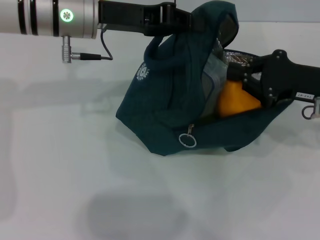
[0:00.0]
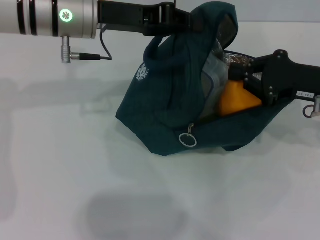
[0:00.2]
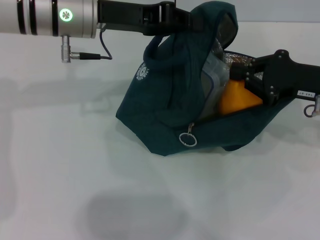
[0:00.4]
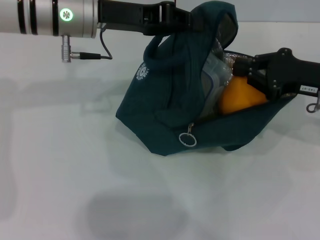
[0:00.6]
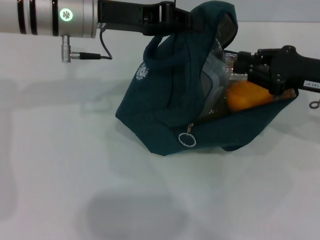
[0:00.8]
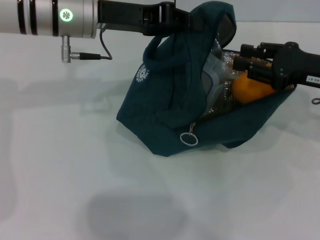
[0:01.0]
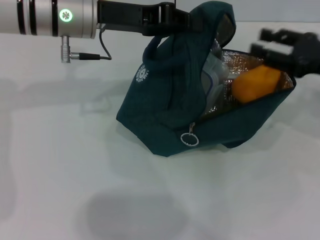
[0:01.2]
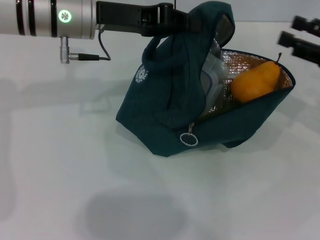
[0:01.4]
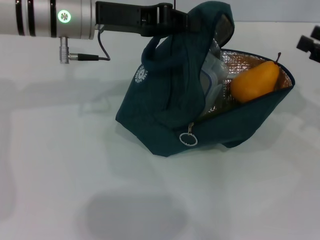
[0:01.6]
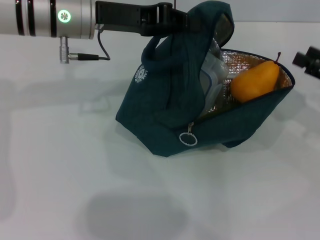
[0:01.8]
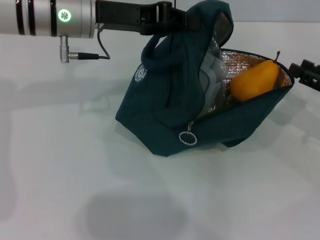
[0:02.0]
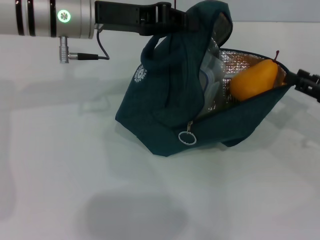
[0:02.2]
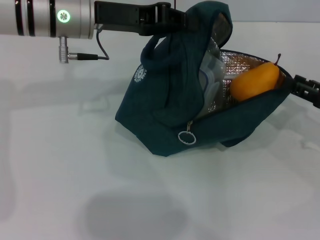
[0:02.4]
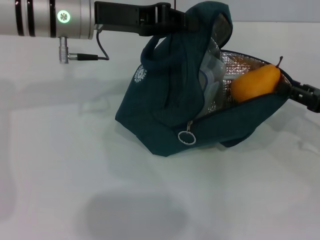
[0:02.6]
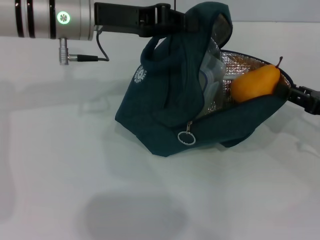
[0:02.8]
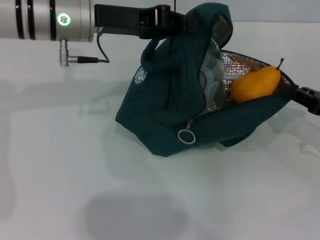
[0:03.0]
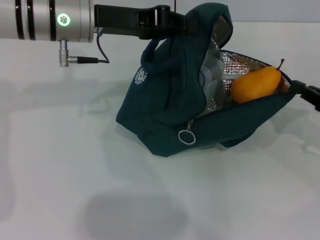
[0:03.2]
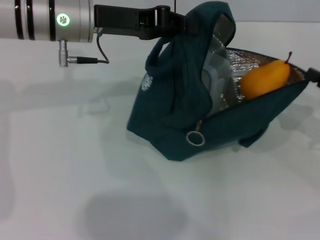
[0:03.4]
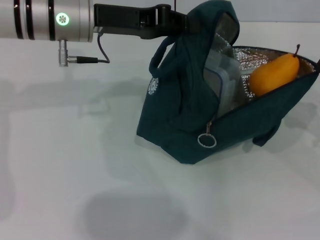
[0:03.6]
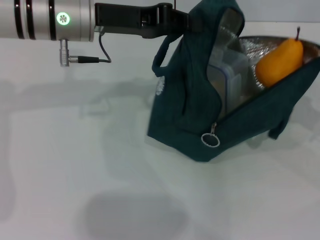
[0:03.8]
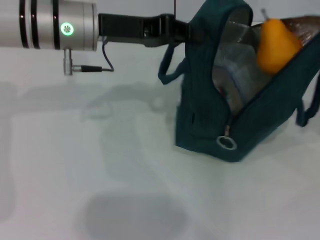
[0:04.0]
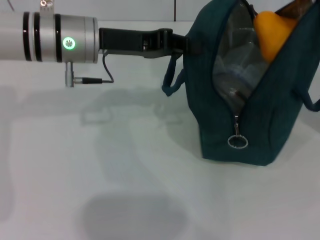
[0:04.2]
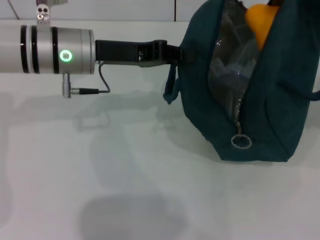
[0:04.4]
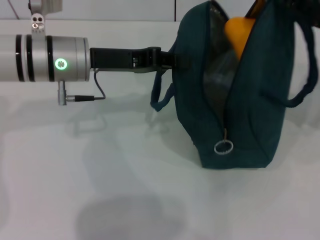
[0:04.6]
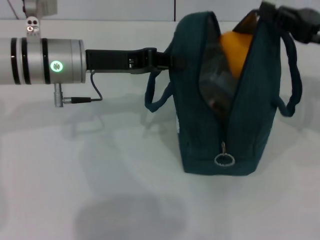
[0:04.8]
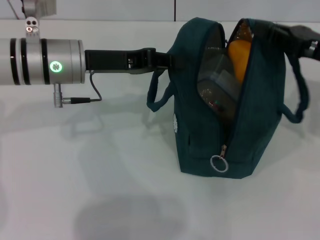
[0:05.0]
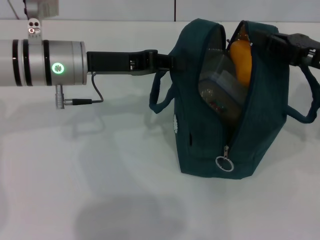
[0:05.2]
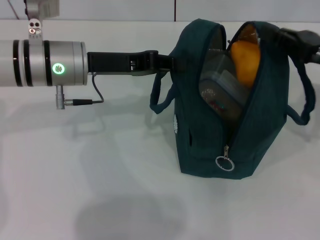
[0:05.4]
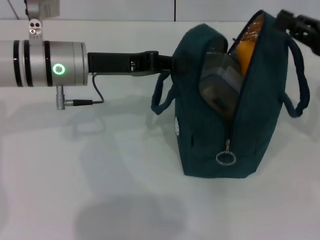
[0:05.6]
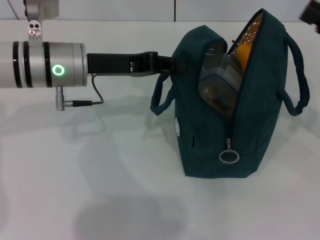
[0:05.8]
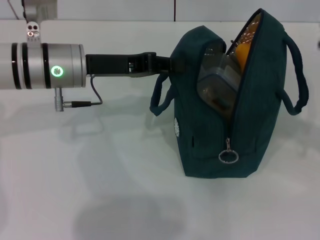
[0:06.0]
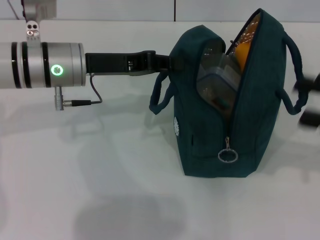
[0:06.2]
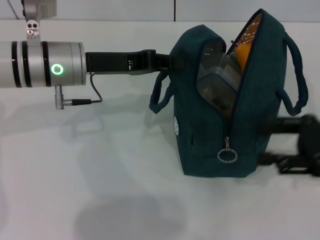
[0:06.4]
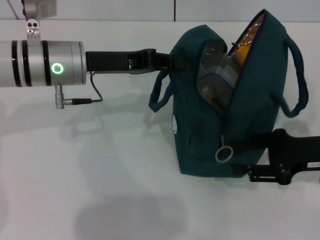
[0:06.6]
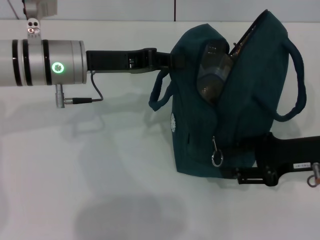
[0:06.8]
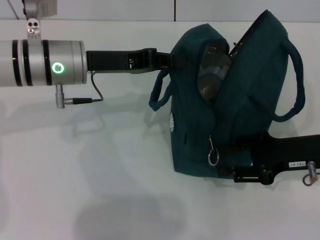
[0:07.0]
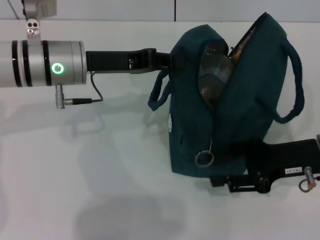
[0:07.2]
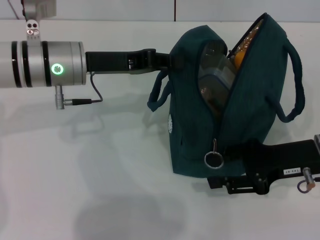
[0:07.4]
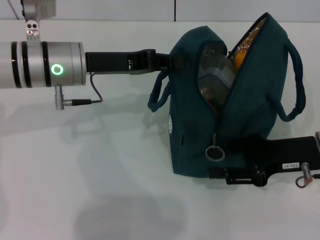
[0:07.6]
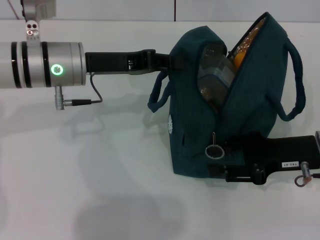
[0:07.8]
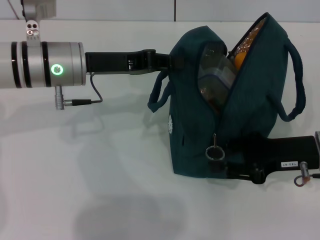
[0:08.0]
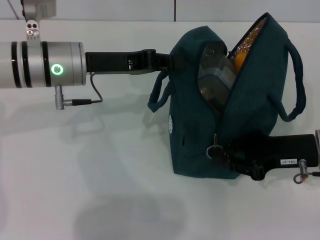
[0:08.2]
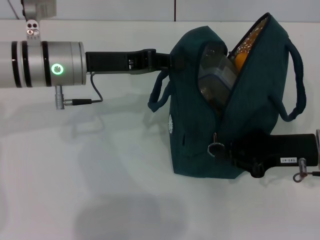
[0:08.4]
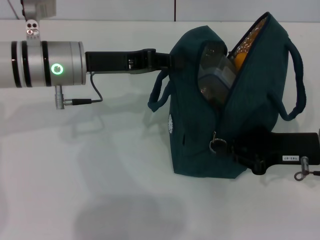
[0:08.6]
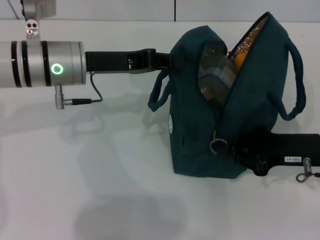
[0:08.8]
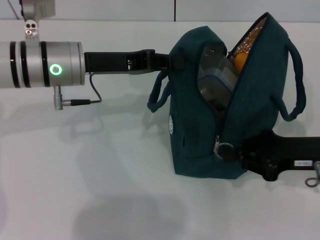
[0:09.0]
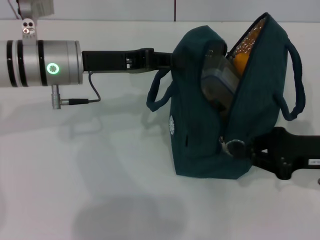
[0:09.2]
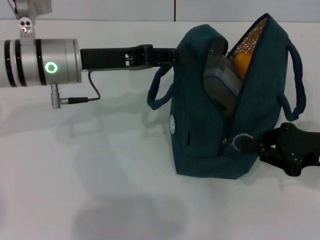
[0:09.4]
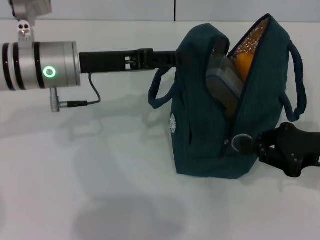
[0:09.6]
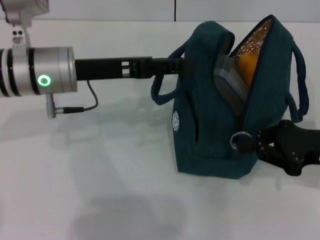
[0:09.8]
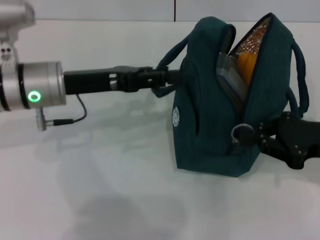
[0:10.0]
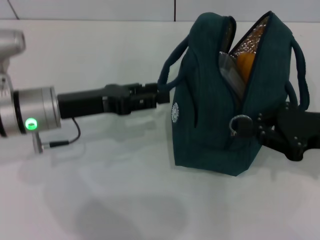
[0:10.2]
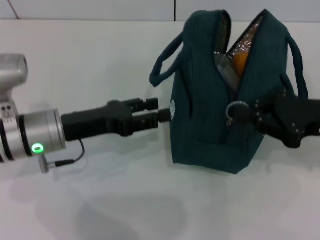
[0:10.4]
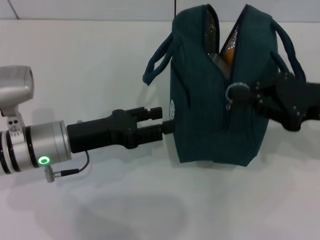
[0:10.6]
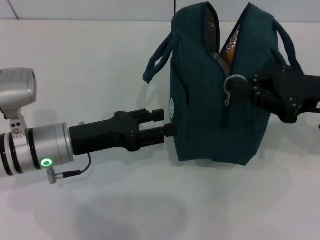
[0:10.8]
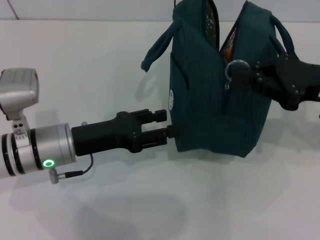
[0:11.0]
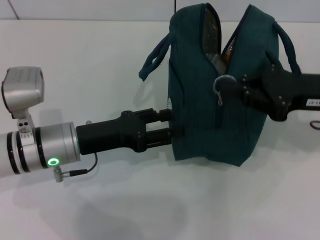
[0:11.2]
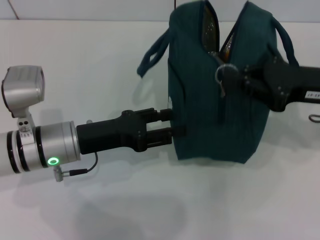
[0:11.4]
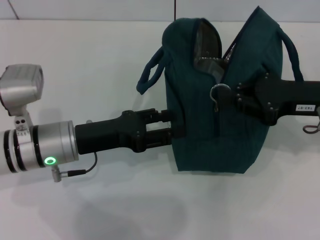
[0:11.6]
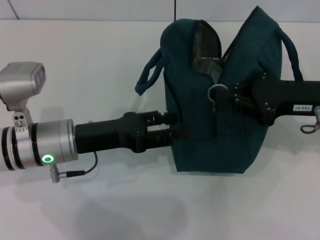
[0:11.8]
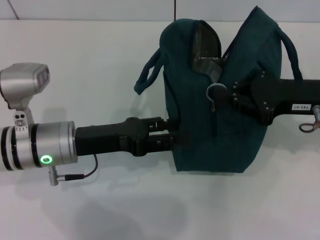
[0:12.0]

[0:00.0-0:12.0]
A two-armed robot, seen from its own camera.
Step, 0:01.2 to 0:05.6: Hold the lunch bag with your right hand.
0:00.0 to 0:01.6: The right gripper shifts about 10 cm to the right, and opens.
0:01.6 to 0:03.0: The right gripper is displaced downward by approximately 5 cm, and closes up.
0:03.0 to 0:04.4: The right gripper is displaced upward by roughly 10 cm, and closes.
0:04.4 to 0:06.0: The right gripper travels backward by some 5 cm.
0:06.0 to 0:07.6: The right gripper moves to the left and downward, about 10 cm.
0:07.6 to 0:09.0: The right gripper closes up.
0:09.0 to 0:10.4: The left gripper heads backward and downward, covering some 10 cm, and opens its fingers; the right gripper shifts by roughly 5 cm.

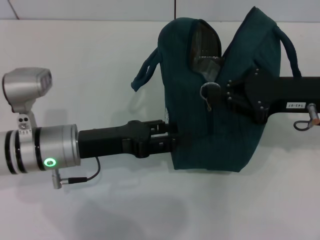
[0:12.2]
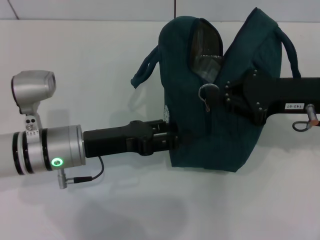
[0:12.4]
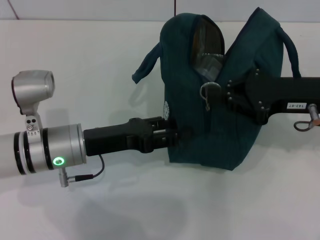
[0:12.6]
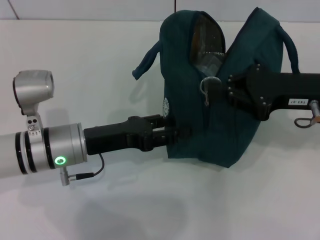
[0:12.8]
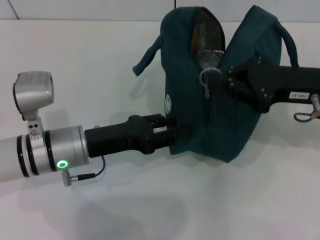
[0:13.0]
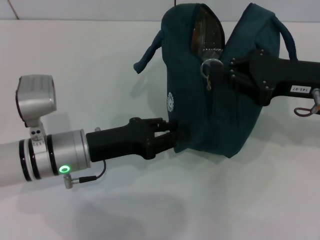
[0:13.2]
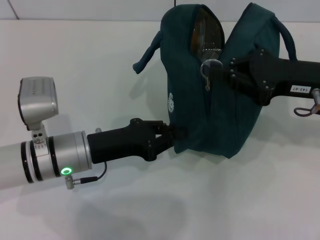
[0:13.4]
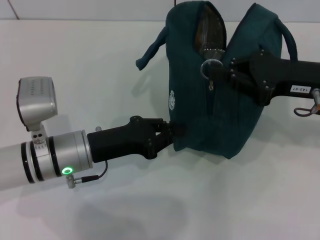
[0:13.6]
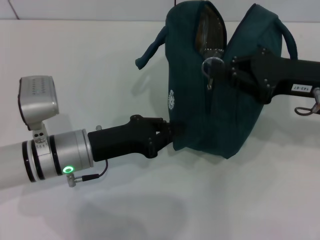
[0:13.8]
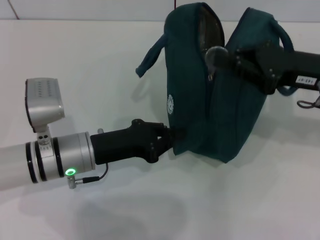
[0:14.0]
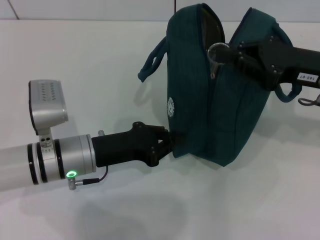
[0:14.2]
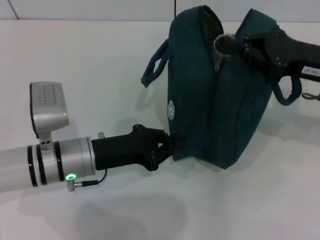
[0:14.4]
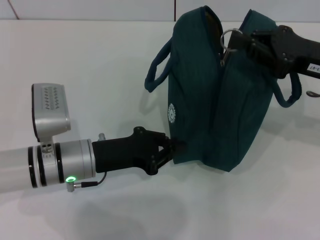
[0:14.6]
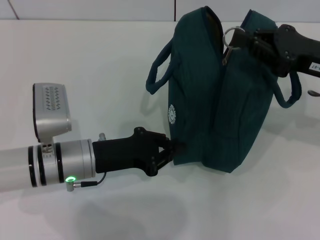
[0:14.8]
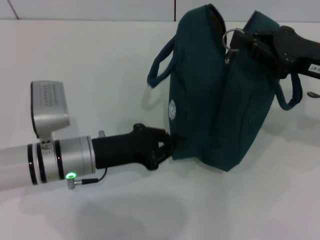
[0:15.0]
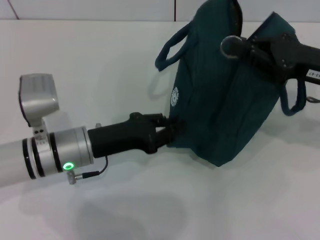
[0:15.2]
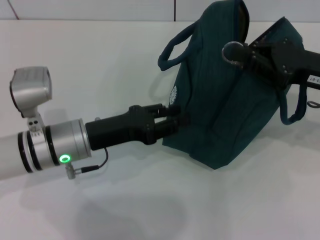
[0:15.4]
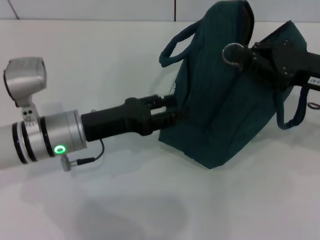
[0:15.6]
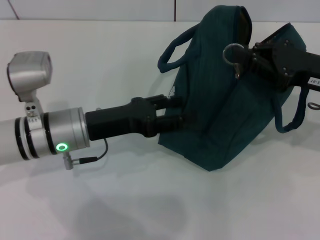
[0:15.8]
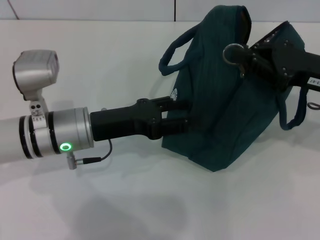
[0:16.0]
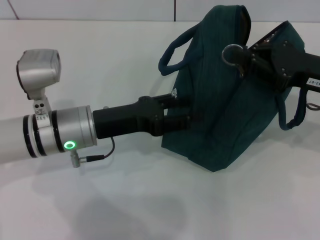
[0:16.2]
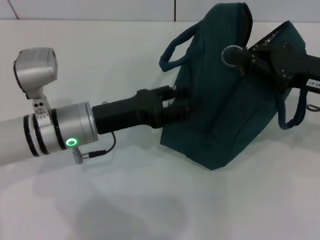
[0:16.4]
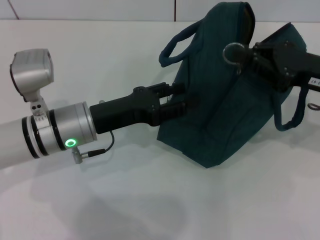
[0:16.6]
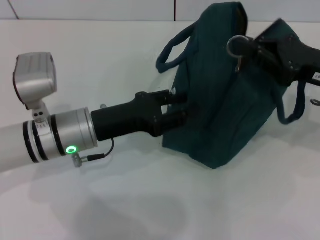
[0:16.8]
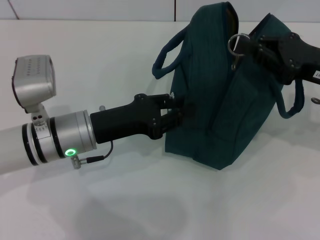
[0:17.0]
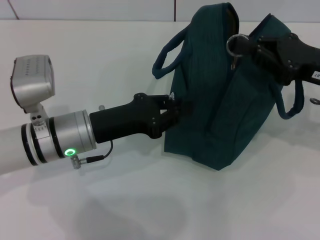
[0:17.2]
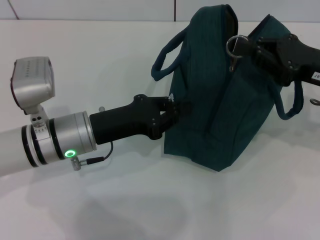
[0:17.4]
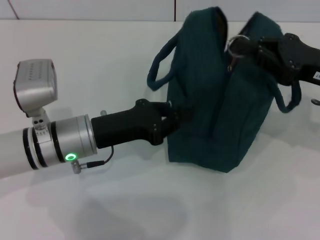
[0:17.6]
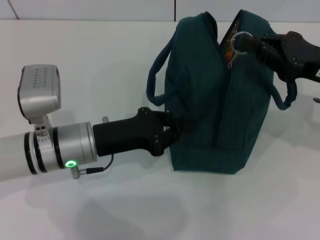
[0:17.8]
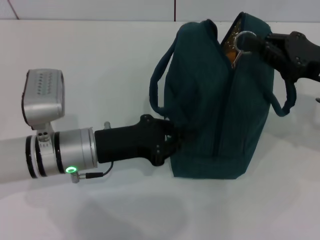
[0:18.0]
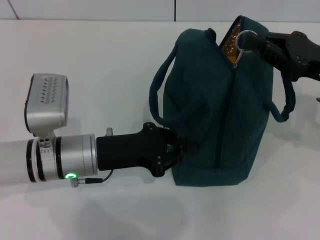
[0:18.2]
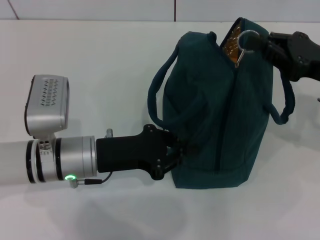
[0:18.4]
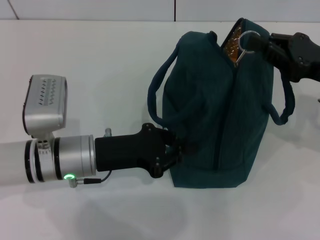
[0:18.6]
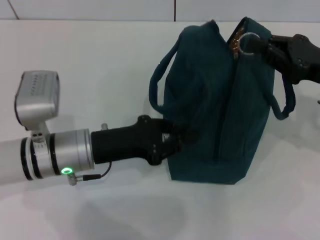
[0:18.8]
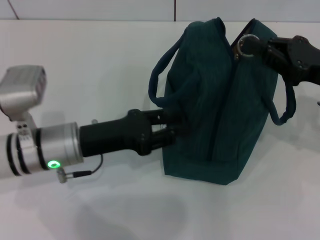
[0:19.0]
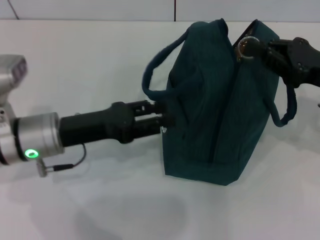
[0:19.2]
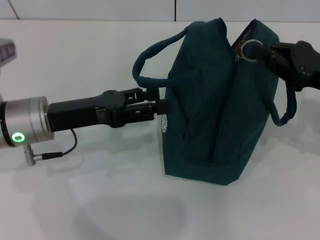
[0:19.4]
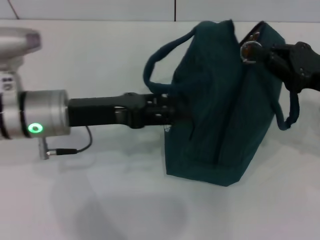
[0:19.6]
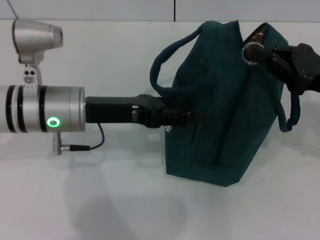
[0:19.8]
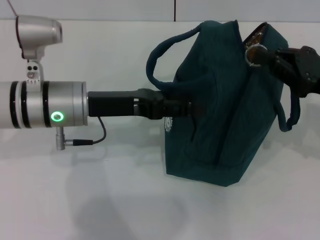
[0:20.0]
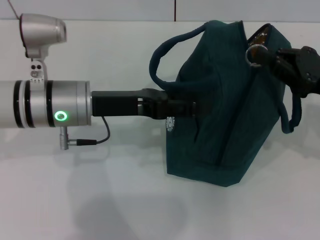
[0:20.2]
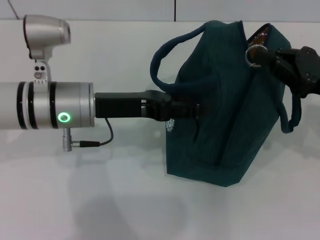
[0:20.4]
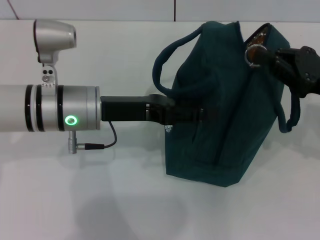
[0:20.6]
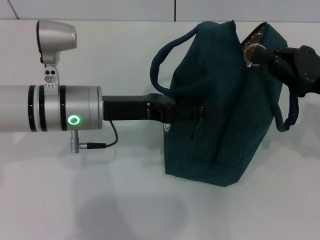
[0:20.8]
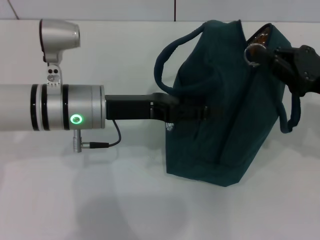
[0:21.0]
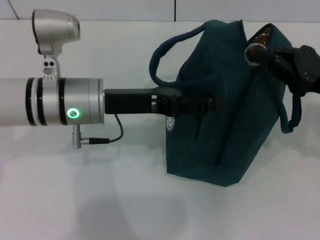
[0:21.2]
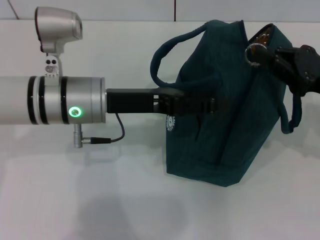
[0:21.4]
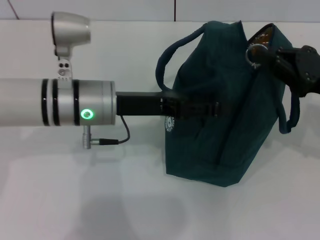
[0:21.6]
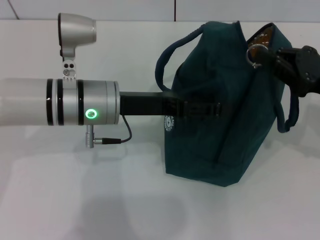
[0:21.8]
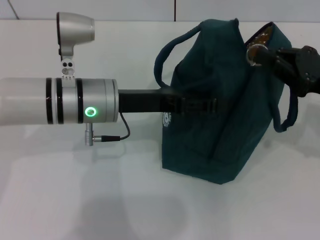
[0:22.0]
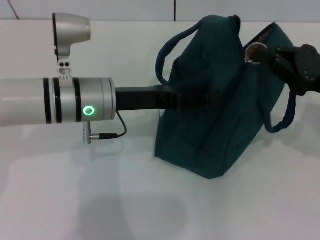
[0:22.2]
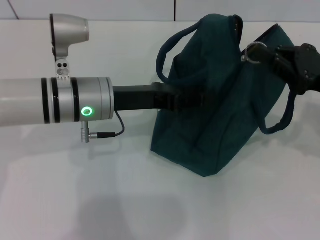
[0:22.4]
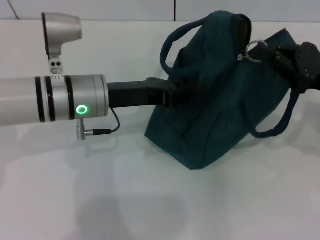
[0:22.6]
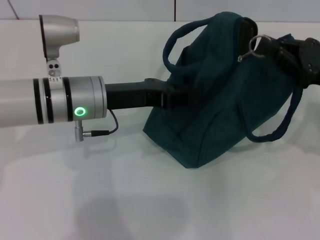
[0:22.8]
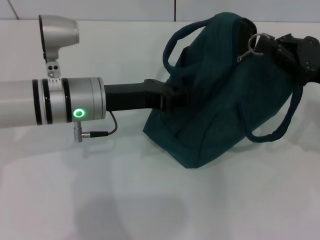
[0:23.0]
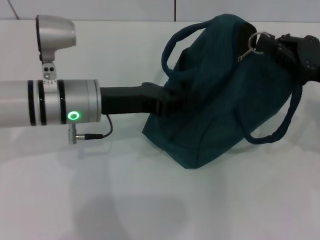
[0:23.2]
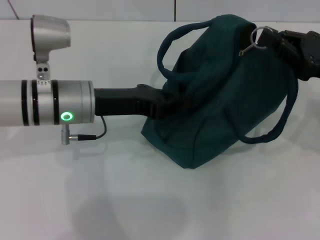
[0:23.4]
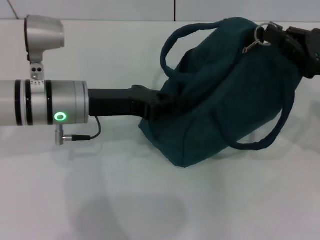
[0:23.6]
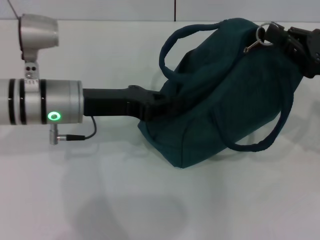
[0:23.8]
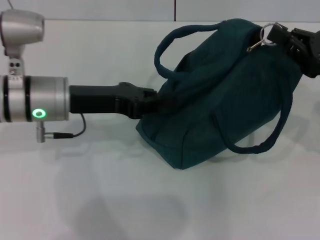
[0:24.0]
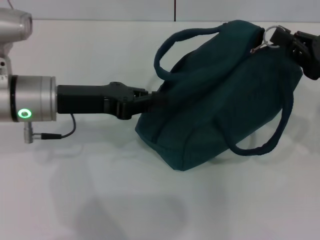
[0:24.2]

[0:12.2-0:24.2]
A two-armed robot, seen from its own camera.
0:12.2 to 0:13.8: The left gripper closes.
0:13.8 to 0:15.2: There are only small adjustments of the grippers.
0:15.2 to 0:16.6: The left gripper opens.
0:16.6 to 0:18.2: The left gripper closes its fingers.
0:18.2 to 0:19.8: The left gripper shifts some 5 cm upward, and opens up.
0:19.8 to 0:21.2: The grippers stay close to where they were, moving slightly.
0:21.2 to 0:22.6: The left gripper closes.
0:22.6 to 0:24.2: The left gripper moves to the left, approximately 5 cm.
